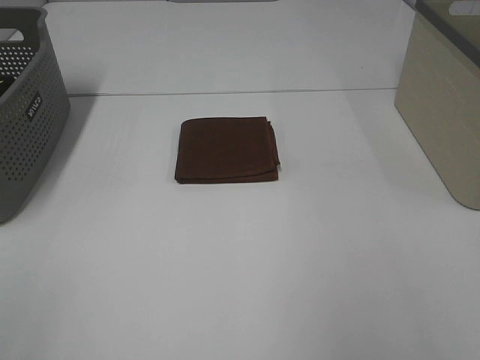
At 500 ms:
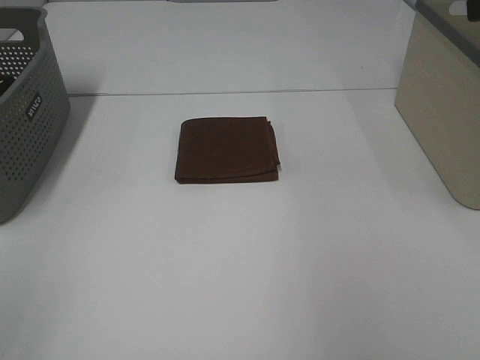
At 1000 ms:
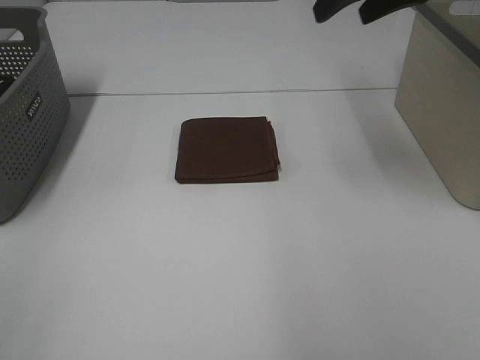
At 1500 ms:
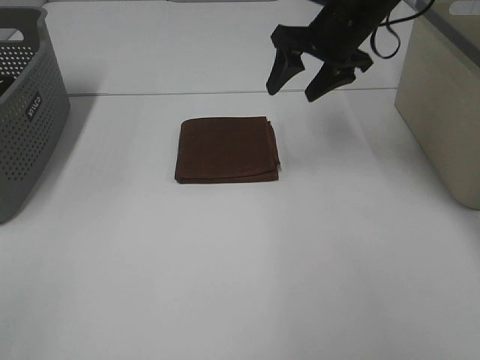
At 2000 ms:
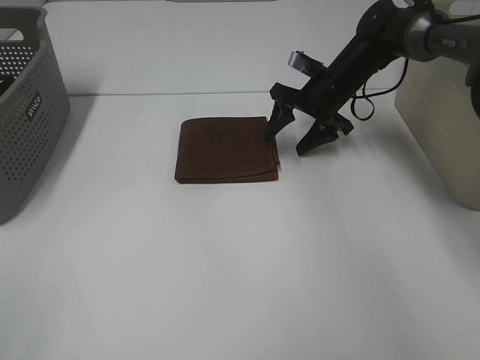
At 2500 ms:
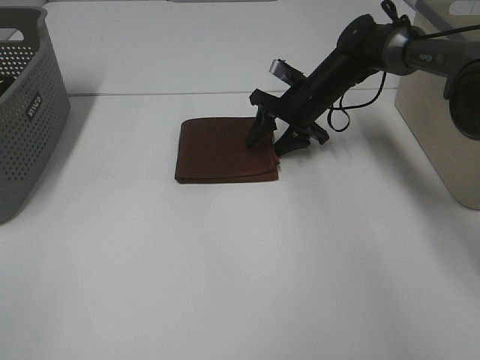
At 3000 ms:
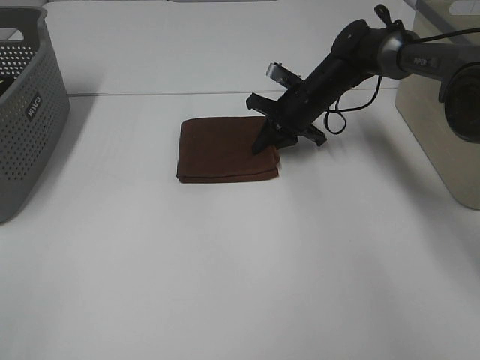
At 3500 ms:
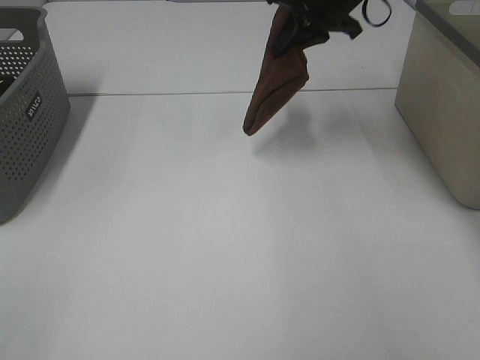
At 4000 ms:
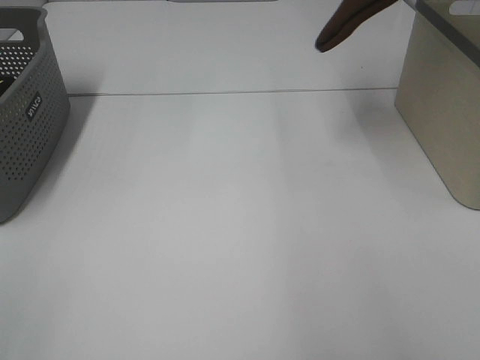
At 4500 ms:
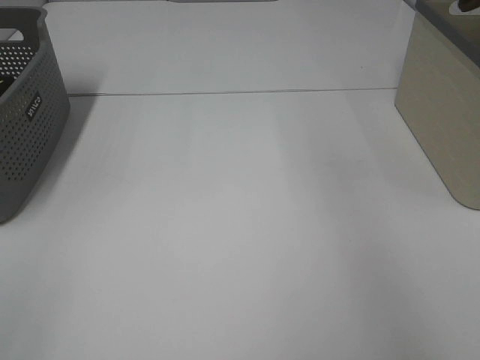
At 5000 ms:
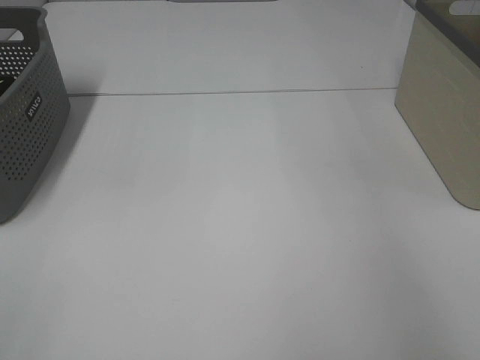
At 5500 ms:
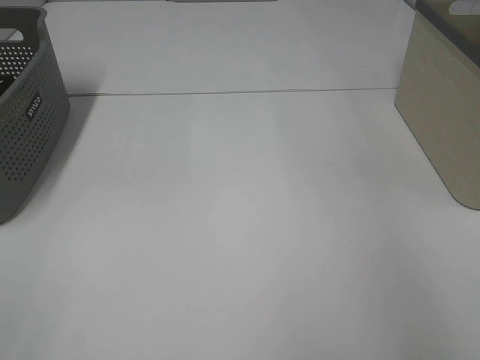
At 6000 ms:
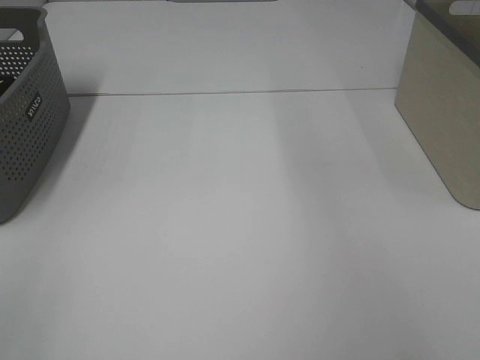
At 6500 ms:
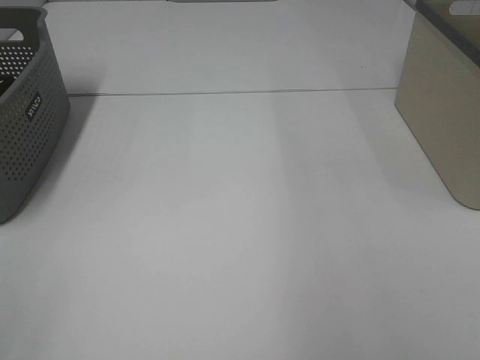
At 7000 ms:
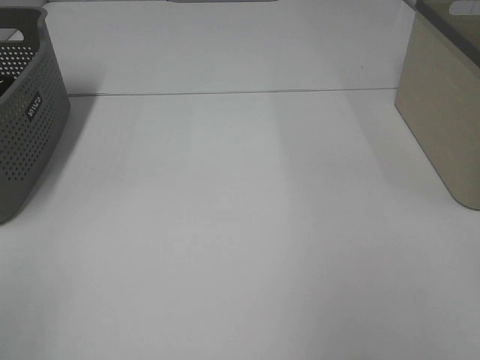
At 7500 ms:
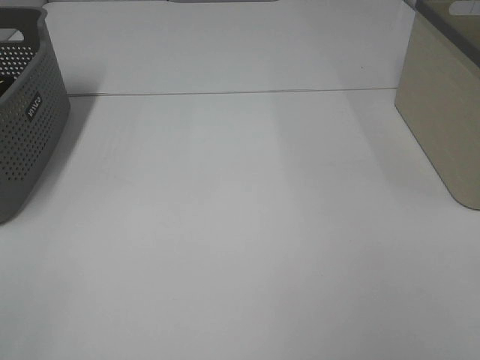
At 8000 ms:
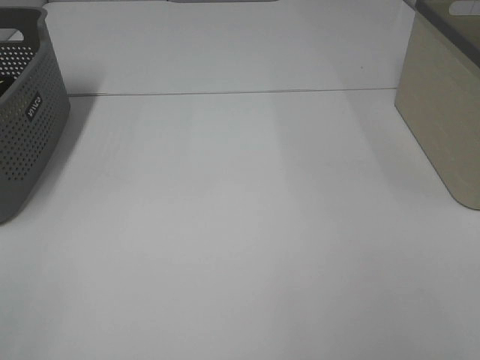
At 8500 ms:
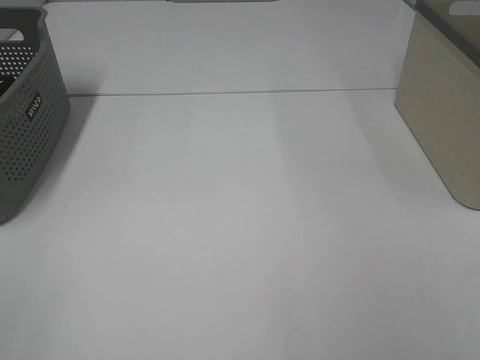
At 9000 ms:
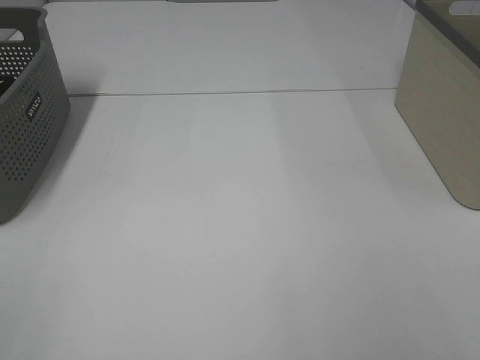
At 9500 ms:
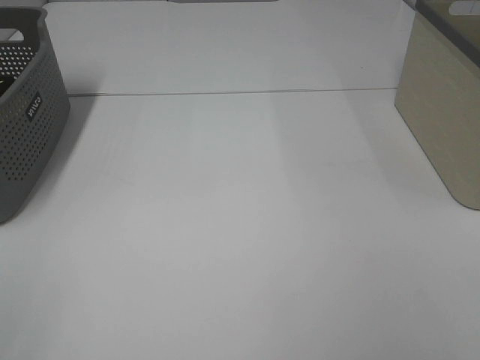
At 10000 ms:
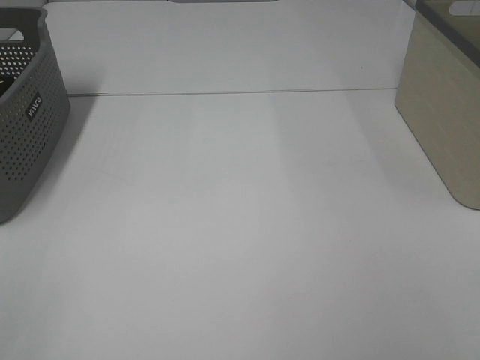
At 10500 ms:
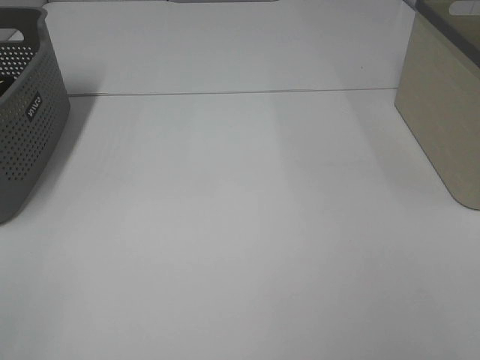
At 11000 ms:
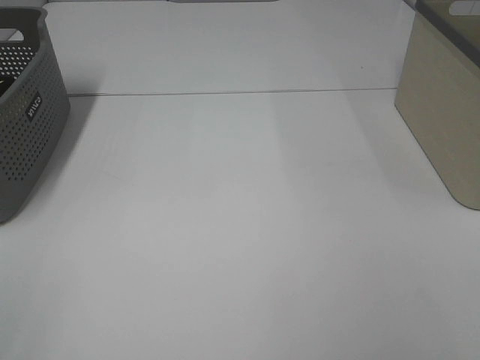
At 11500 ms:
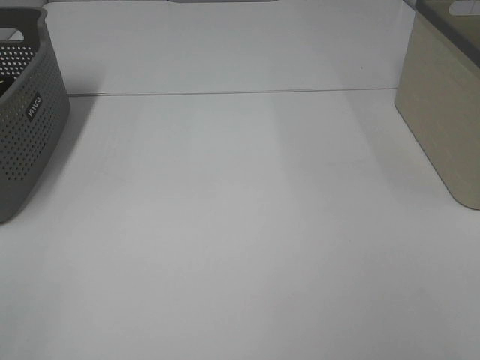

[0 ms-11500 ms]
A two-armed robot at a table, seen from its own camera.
Step, 0 ms to 3000 ms: Right hand: grab the folded brown towel.
Step, 3500 ms to 5000 ms: Right hand: place the brown towel in right basket.
0 ms to 2000 ms: The right gripper heads forward and downward, covering some 50 cm.
2000 ms to 4000 ms: The right gripper is displaced upward by some 30 cm, and closes.
4000 ms to 6000 ms: The right gripper moves to the right, some 5 cm, and opens.
9500 ms to 11500 ms: Both grippers stay put.

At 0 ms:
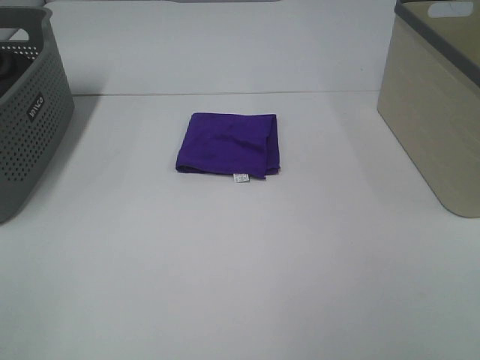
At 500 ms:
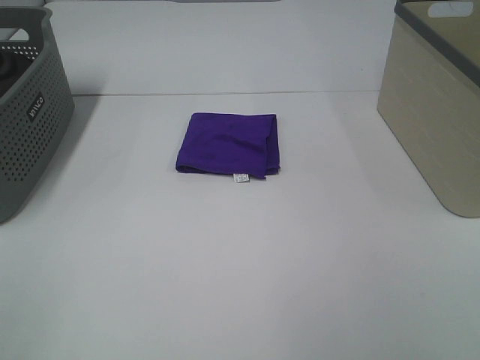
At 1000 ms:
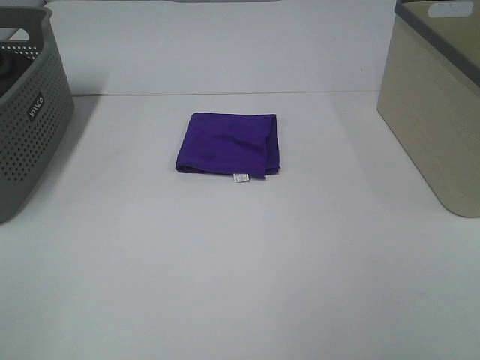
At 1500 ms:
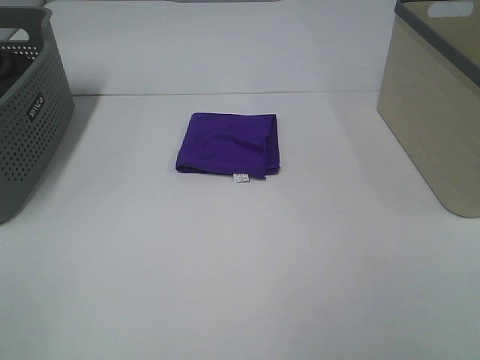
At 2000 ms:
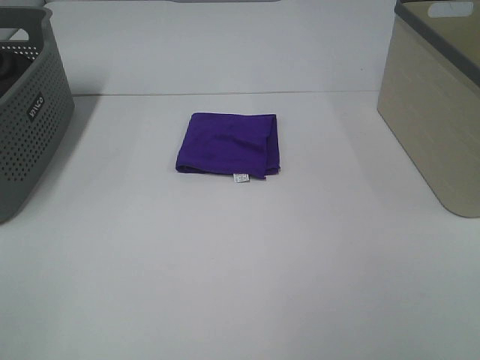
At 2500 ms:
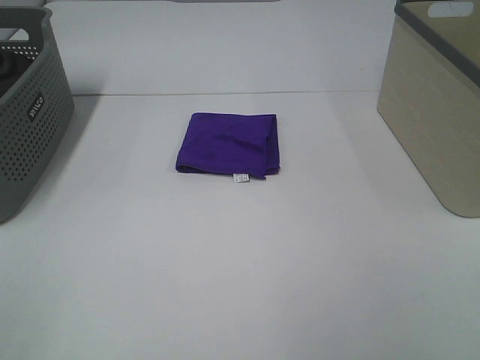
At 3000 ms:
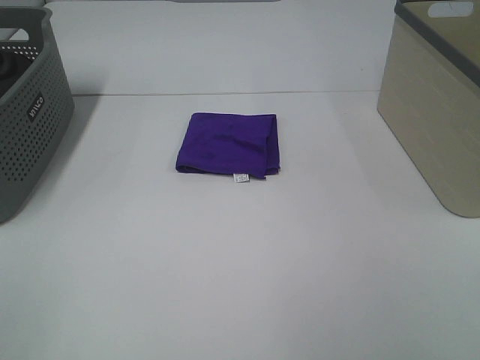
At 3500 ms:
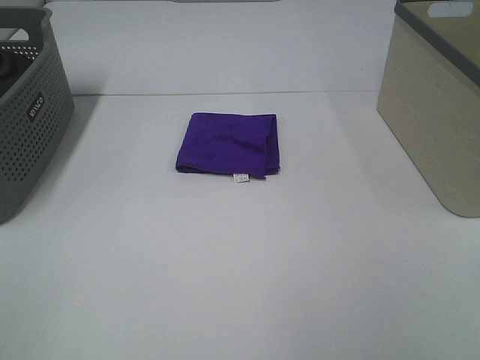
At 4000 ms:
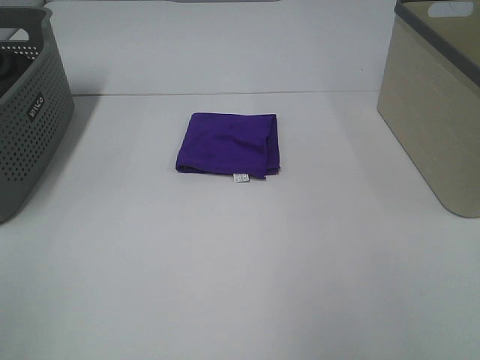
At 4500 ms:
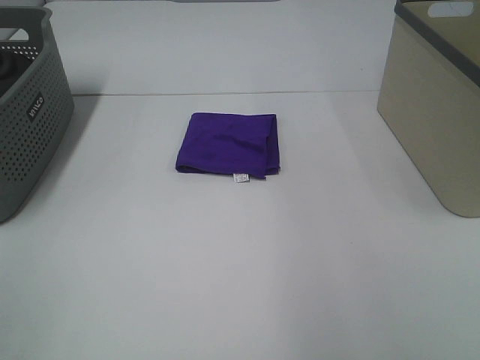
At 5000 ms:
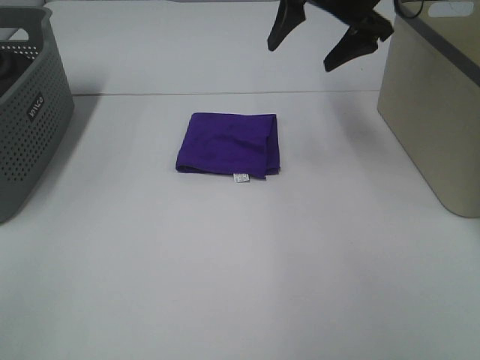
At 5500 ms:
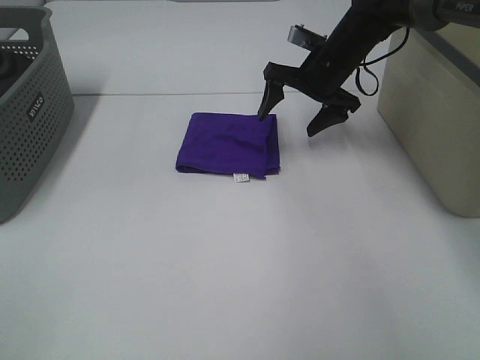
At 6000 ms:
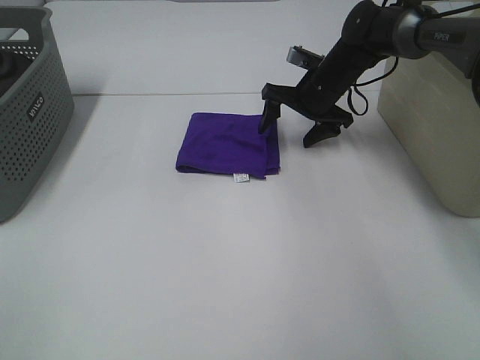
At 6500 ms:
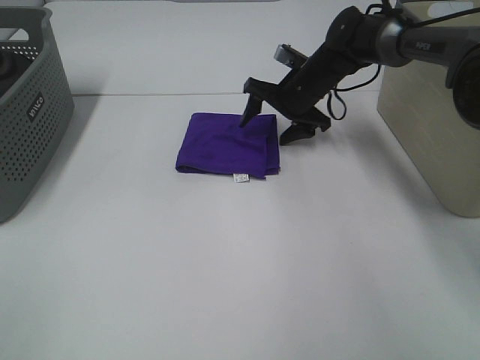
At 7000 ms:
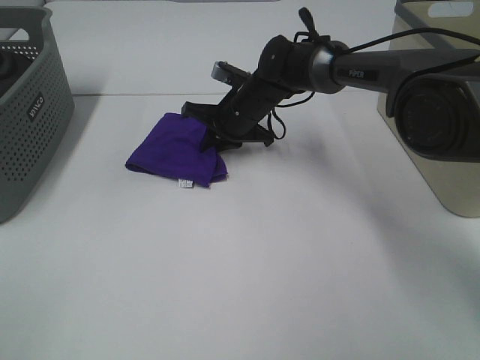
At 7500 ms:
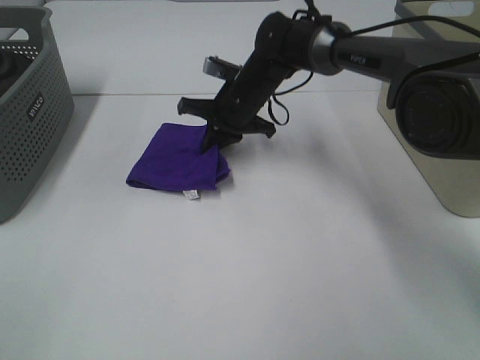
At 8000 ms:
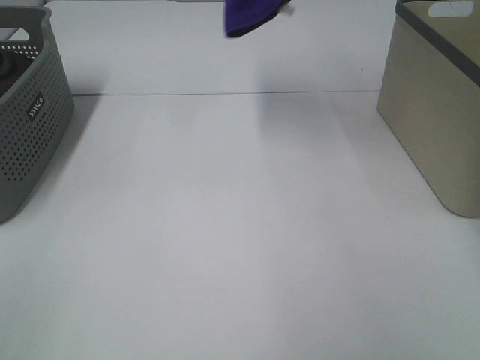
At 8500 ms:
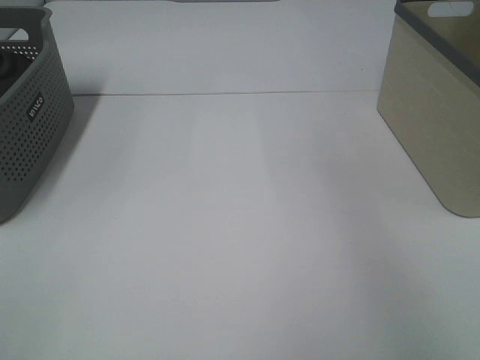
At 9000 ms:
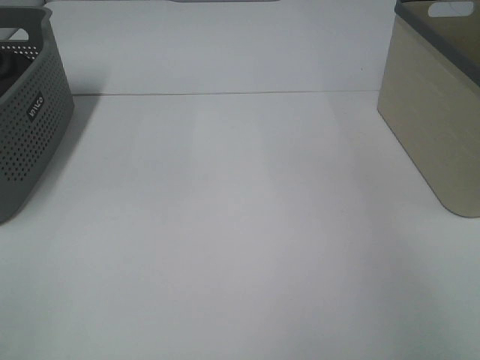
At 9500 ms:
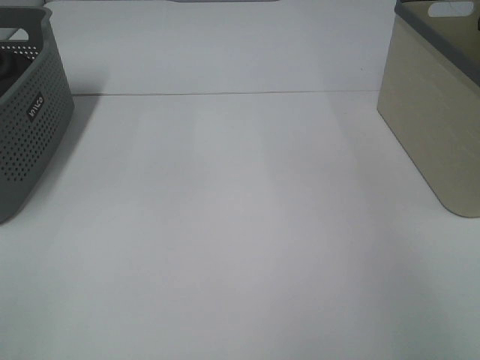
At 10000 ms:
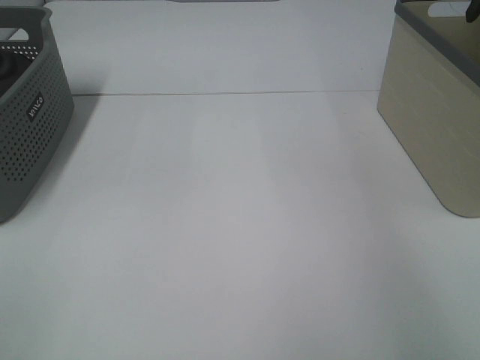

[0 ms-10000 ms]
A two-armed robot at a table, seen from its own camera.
Step, 0 ms to 7000 ms: Right hand: grab the folded purple towel.
Step, 7500 ms to 9500 ms: Right hand: place the purple towel in right basket.
0 ms to 2000 ms: The two grippers keep their place.
4000 ms to 6000 ms: The right gripper heads forward and downward, covering some 50 cm.
6000 ms to 8000 ms: The right gripper moves upward, some 30 cm, and closes up.
8000 ms to 10000 ms: The right gripper shifts some 20 cm to the right, and opens.

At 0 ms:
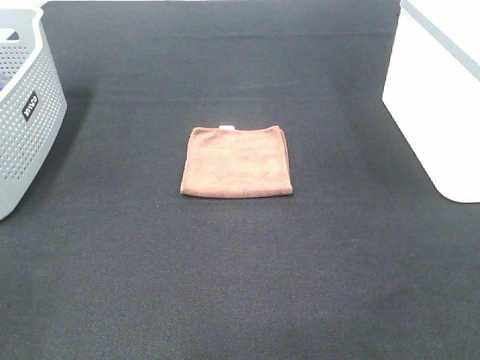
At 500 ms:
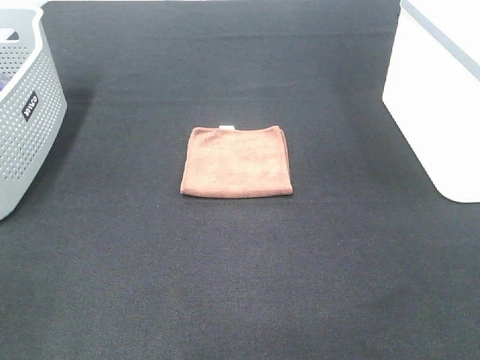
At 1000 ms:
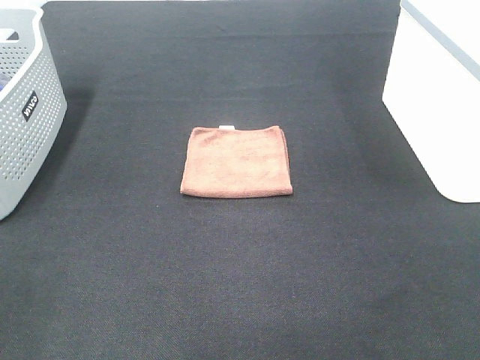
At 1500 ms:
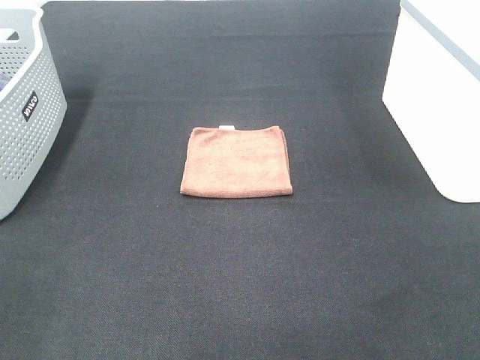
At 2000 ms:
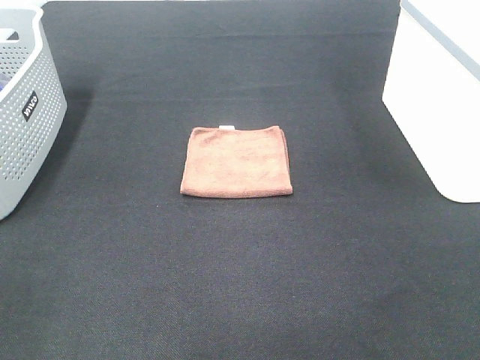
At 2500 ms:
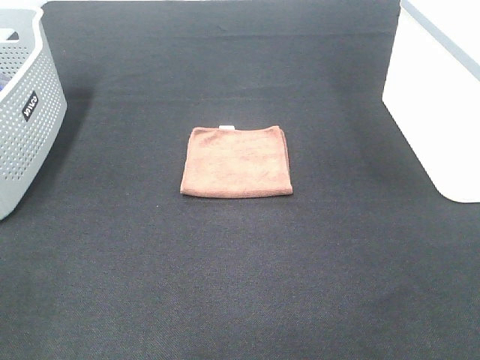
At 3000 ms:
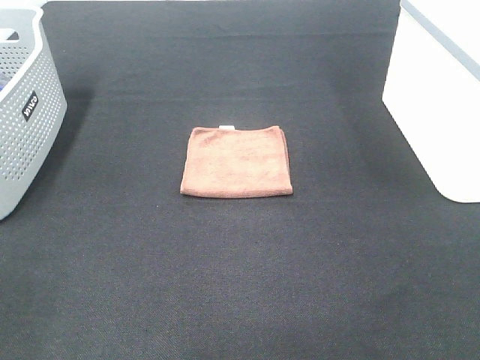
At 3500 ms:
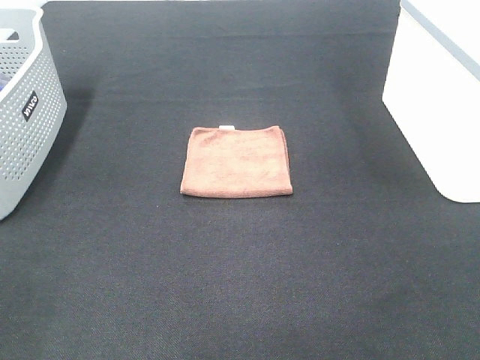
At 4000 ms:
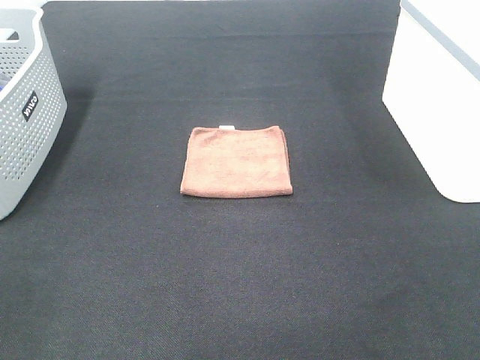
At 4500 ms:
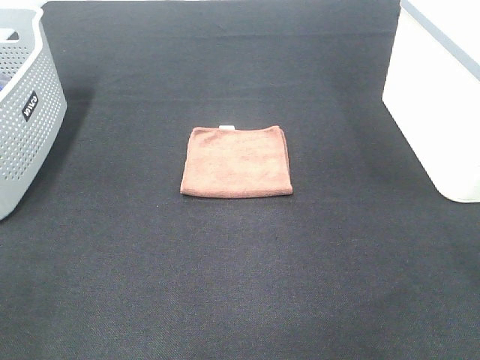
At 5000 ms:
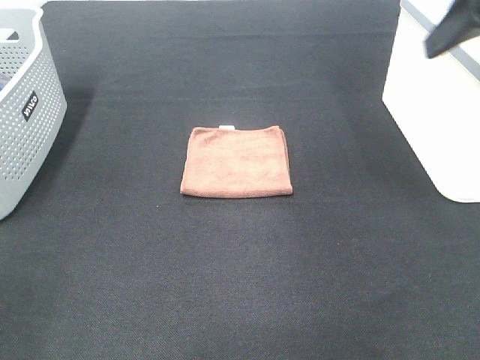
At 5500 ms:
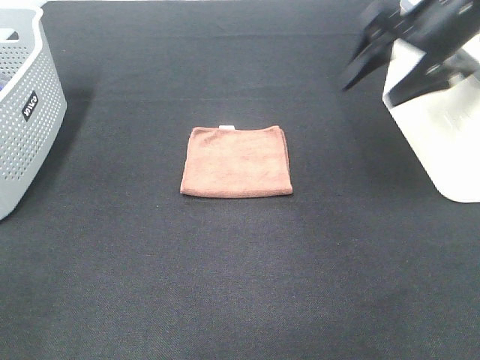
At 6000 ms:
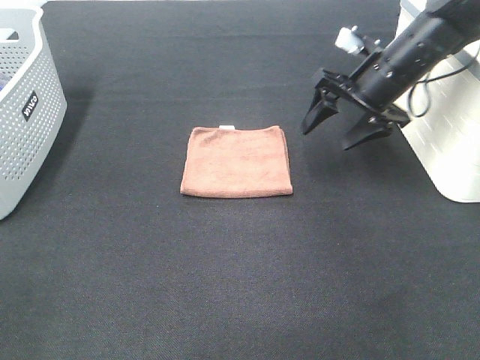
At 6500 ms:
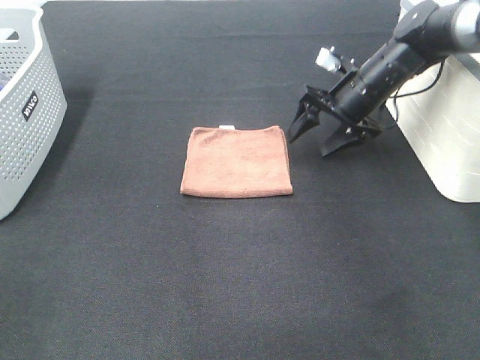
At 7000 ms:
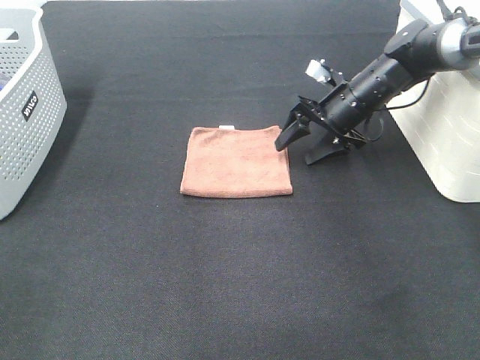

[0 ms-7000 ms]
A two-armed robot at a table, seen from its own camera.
0 ms to 3500 ms: Neither gripper changes place.
3500 ms to 5000 ms: The right gripper goes approximately 30 cm forward.
5000 ms to 7000 ms: The right gripper is displaced downward and forward by approximately 30 cm.
